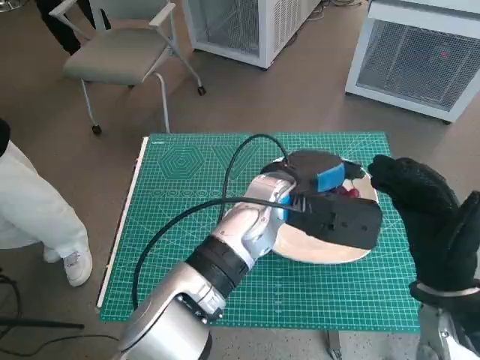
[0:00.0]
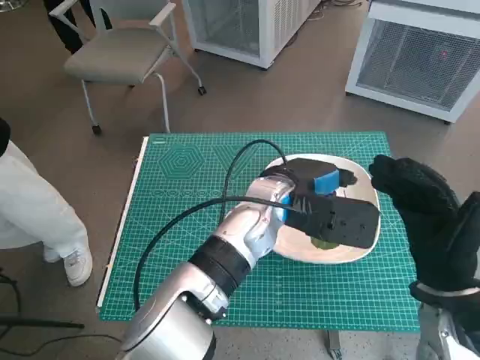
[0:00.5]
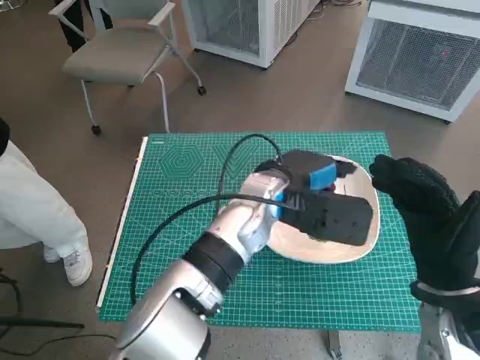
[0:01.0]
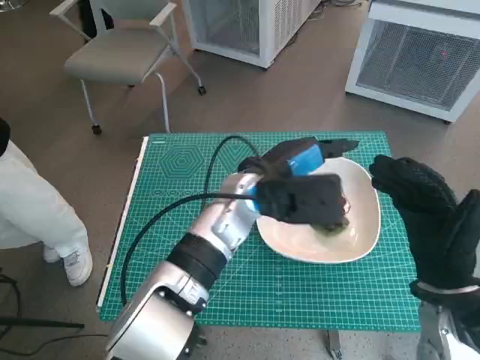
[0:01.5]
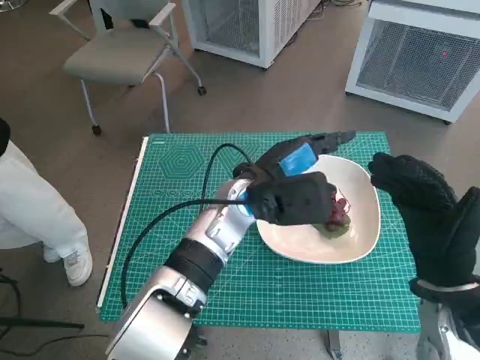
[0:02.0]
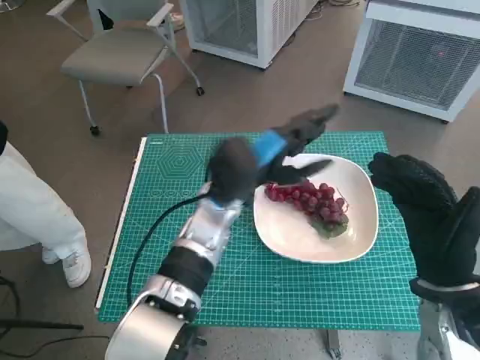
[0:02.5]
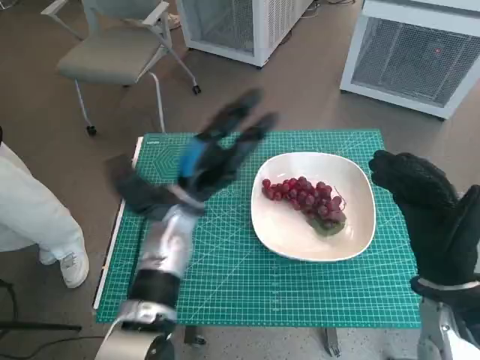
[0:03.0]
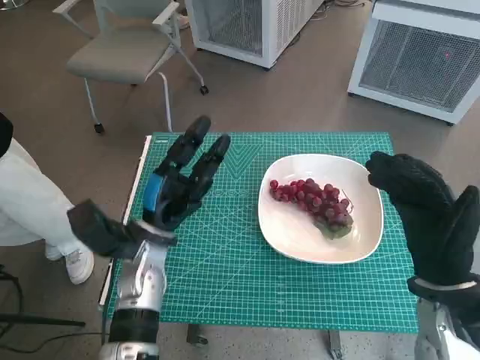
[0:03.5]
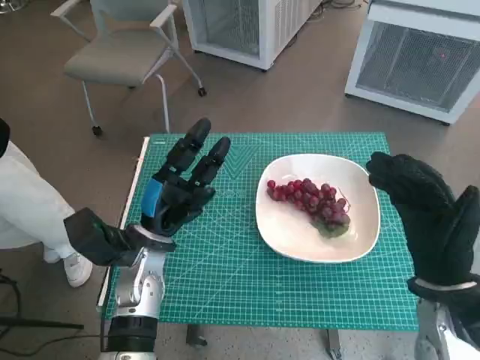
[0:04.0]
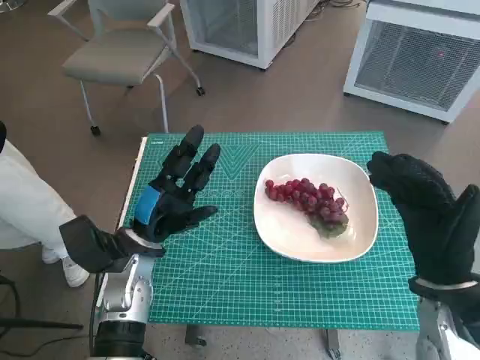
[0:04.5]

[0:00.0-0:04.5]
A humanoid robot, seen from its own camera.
Task of the whole recording: Pick up the grapes and put them on the plate.
0:02.0 to 0:04.5: The left hand moves to the left and downward, roughly 20 cm.

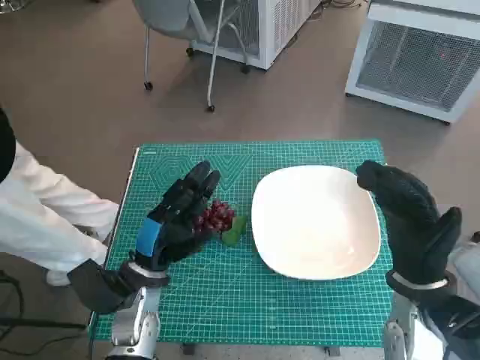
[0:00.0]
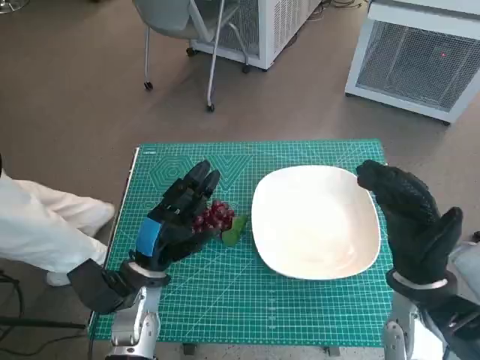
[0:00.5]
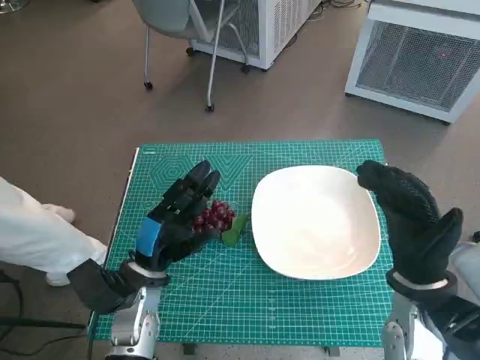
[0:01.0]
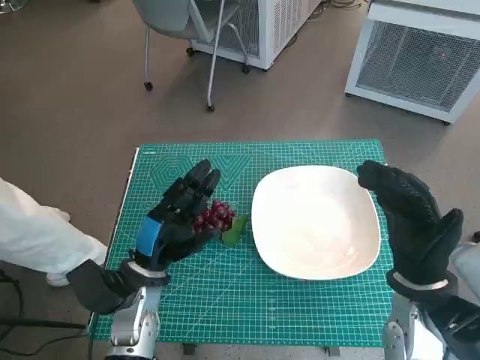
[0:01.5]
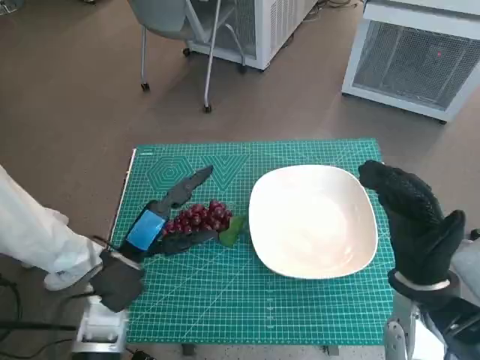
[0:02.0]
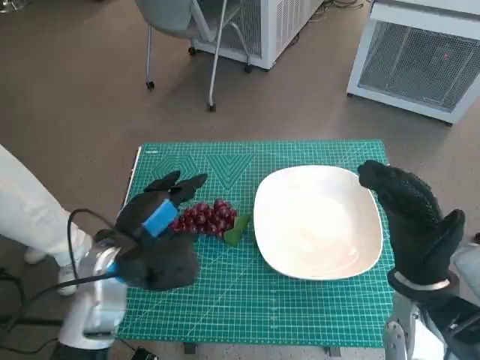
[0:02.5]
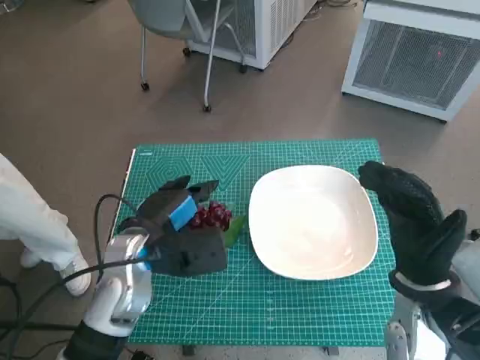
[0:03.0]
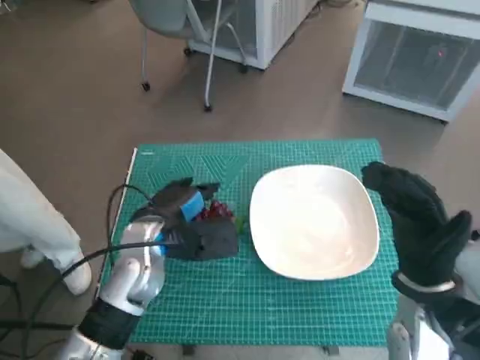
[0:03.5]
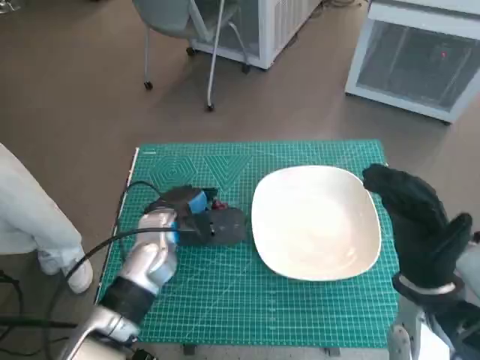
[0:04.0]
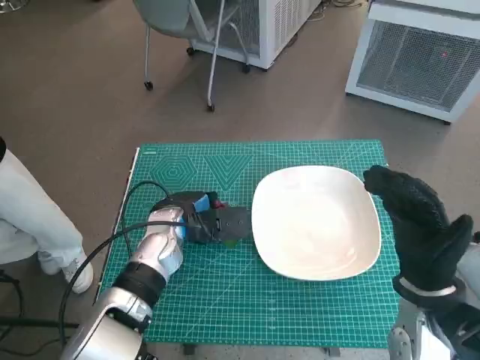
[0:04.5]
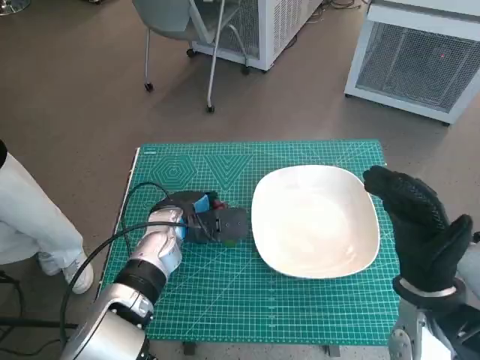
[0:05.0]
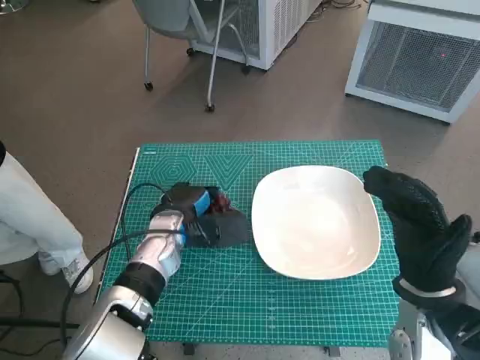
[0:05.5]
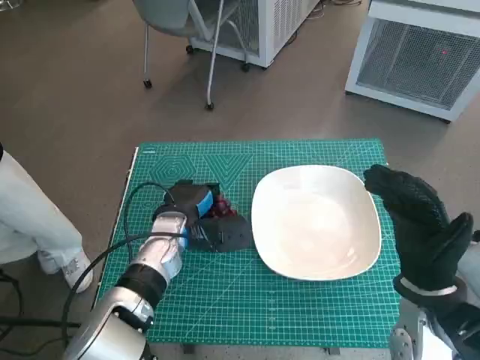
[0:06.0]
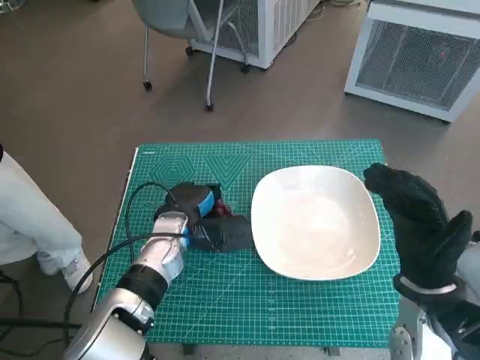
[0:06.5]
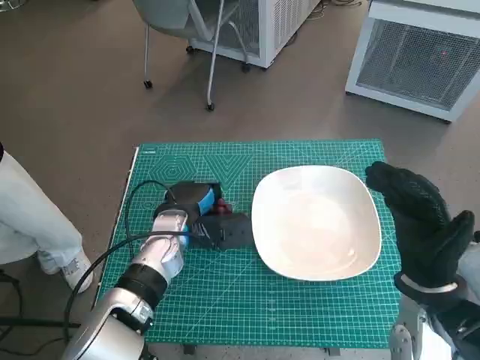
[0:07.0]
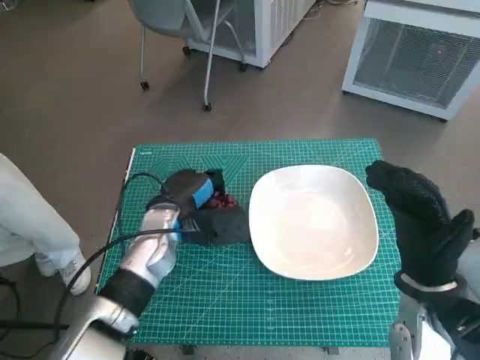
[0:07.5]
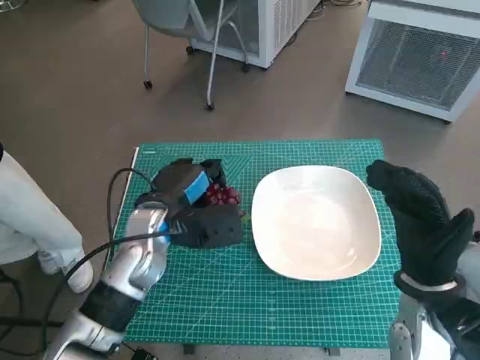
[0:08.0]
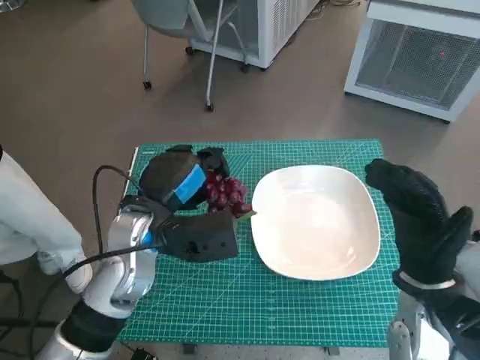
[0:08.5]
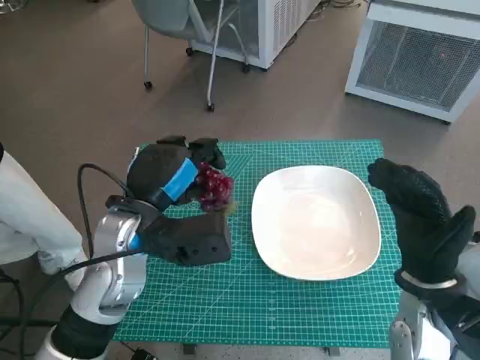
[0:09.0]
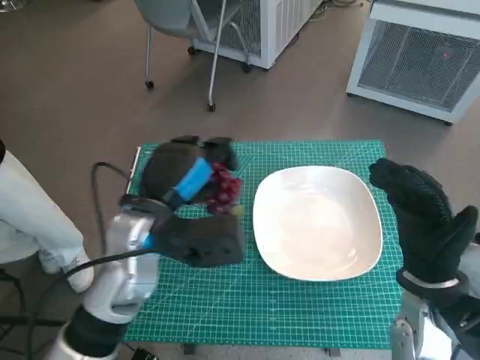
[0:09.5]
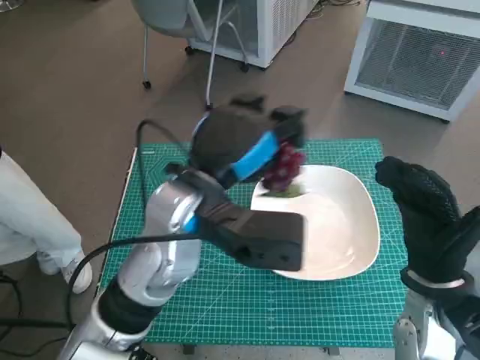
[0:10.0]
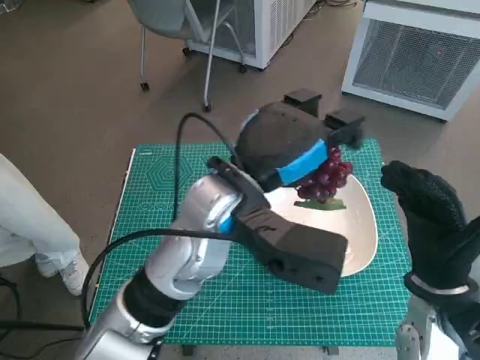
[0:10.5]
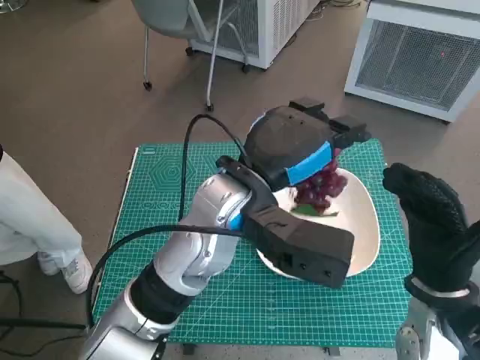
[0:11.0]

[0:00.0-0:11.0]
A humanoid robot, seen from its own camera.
Task of the whole recording: Pick up the grapes and put them on the plate.
Step, 0:00.0 to 0:05.0: Grasp the grapes with left hand.
0:02.0 to 0:03.5: The left hand moves some 10 cm.
0:03.5 to 0:05.5: The left hand changes place by about 5 cm.
0:05.5 to 0:07.5: The hands make only small movements.
0:07.5 to 0:09.0: The left hand travels upward and backward by some 10 cm.
0:09.0 to 0:11.0: The left hand travels to the right and upward by roughly 15 cm.

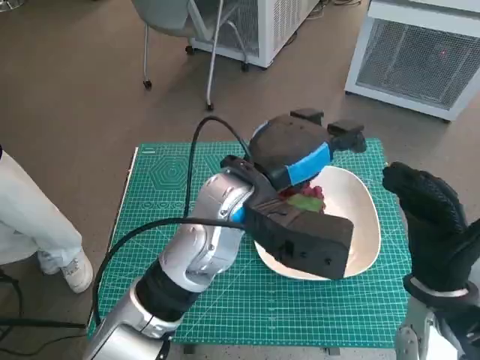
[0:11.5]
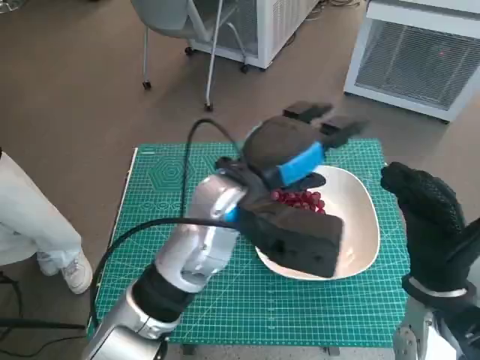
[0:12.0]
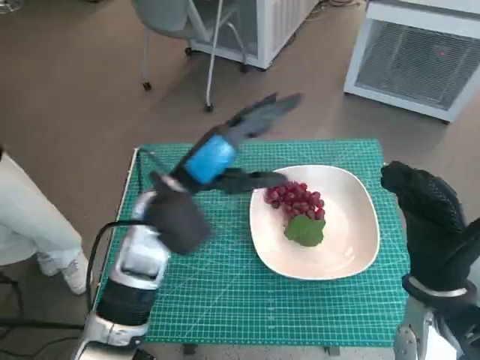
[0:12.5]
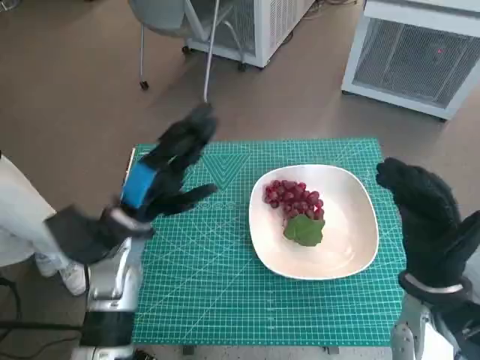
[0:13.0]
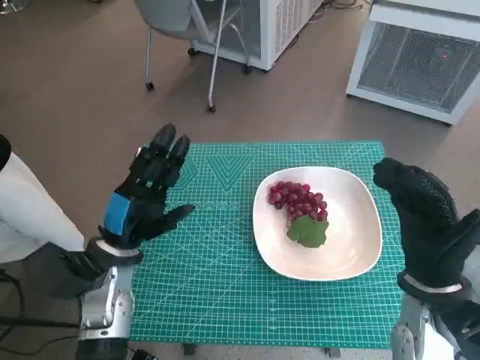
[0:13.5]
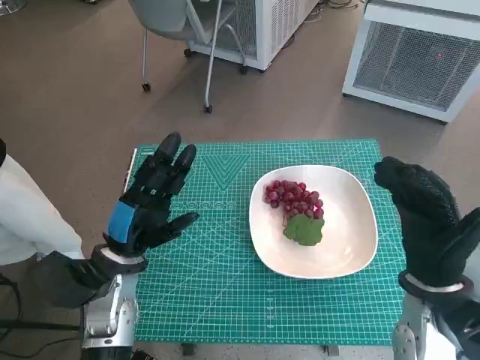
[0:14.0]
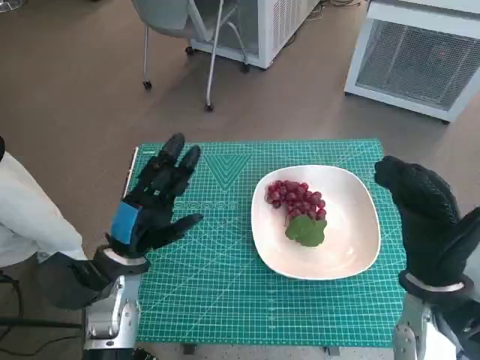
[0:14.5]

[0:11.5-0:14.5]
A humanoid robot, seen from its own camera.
Task of the whole recording: Pick up the grapes and put them on the plate.
0:11.5 to 0:13.0: The left hand shifts about 20 cm to the left and downward.
0:13.0 to 0:14.5: The left hand moves some 5 cm.

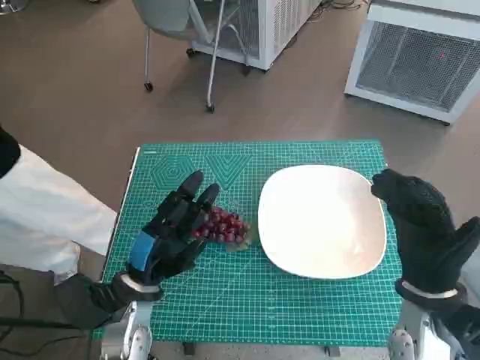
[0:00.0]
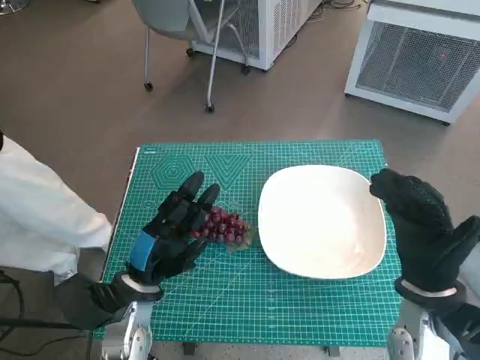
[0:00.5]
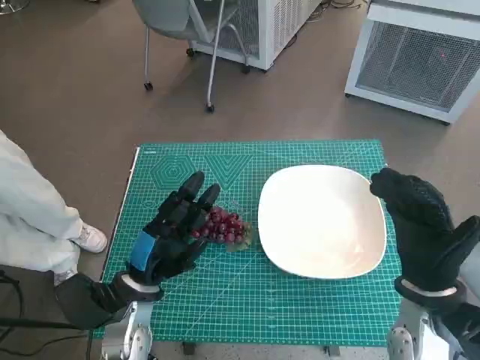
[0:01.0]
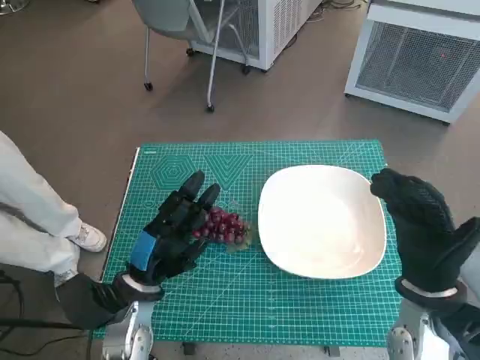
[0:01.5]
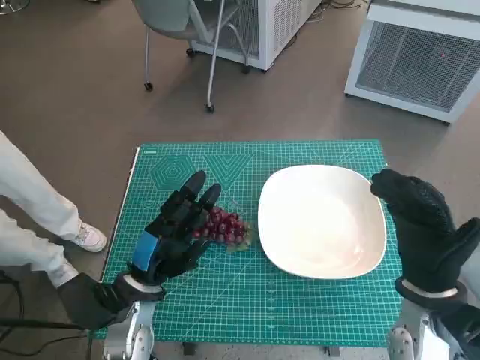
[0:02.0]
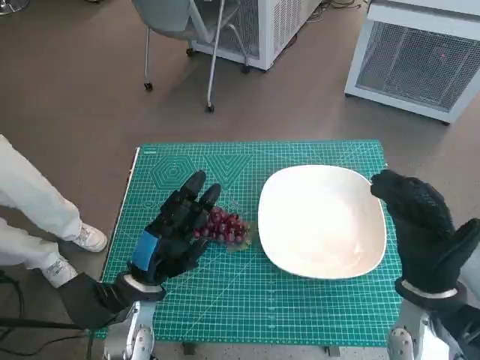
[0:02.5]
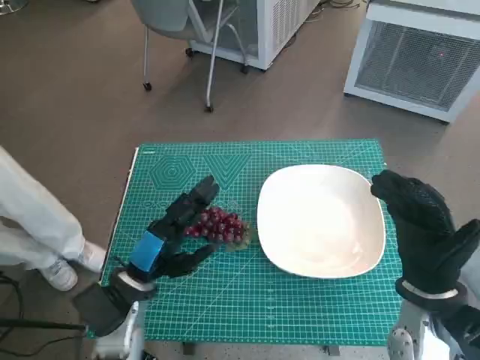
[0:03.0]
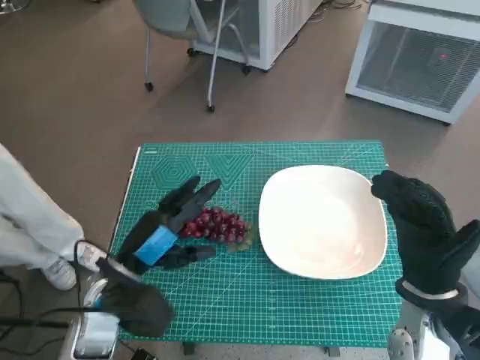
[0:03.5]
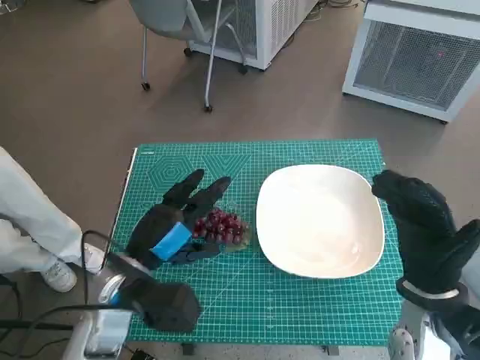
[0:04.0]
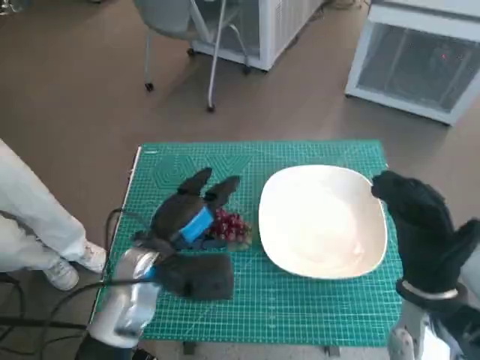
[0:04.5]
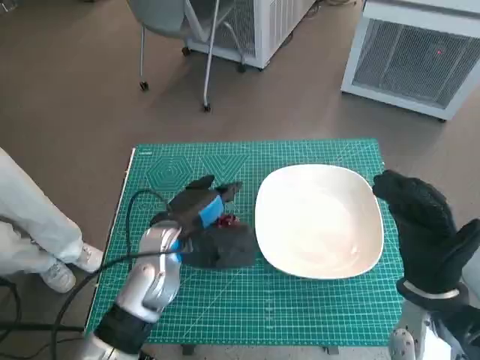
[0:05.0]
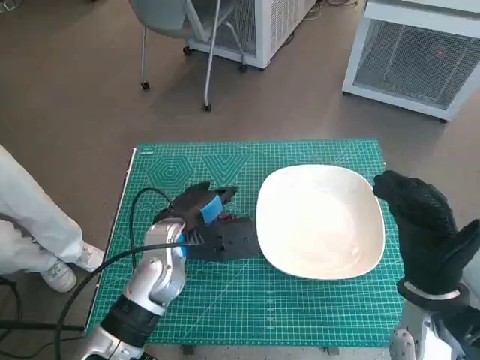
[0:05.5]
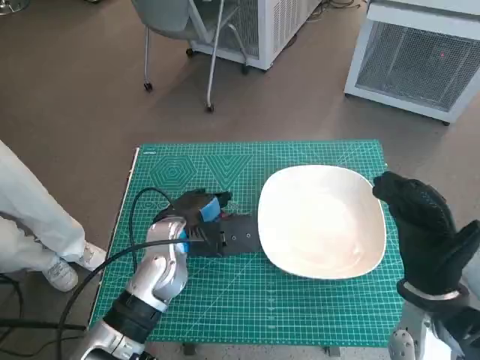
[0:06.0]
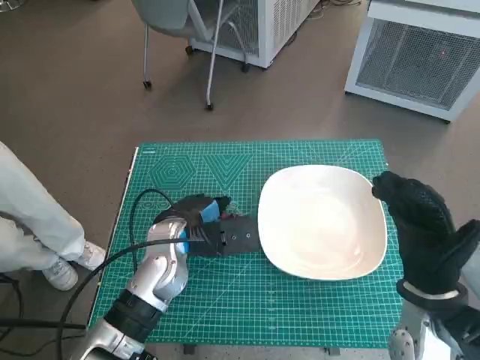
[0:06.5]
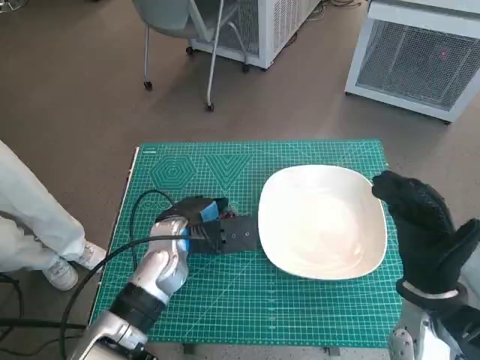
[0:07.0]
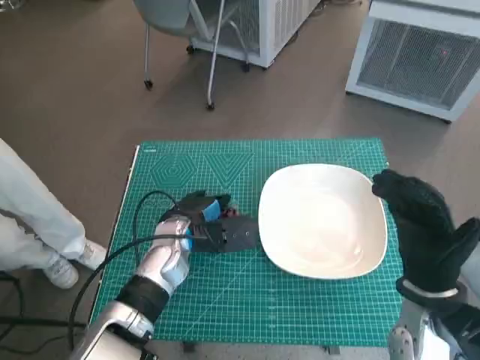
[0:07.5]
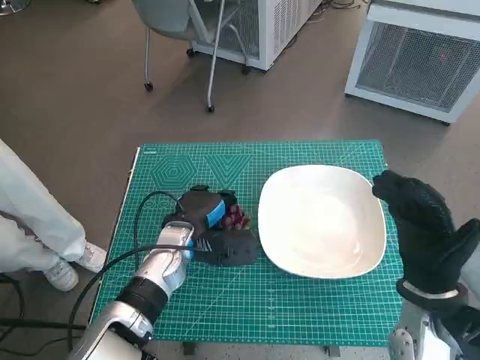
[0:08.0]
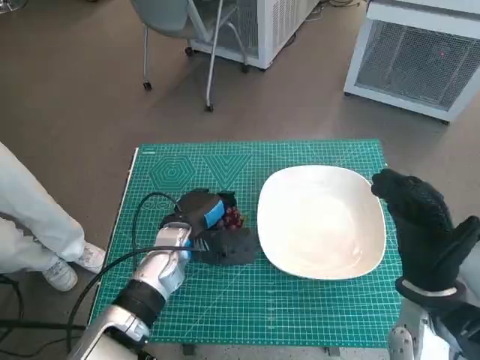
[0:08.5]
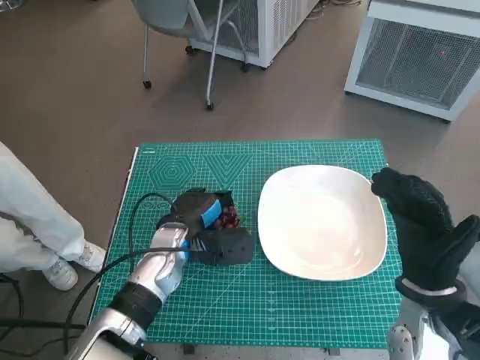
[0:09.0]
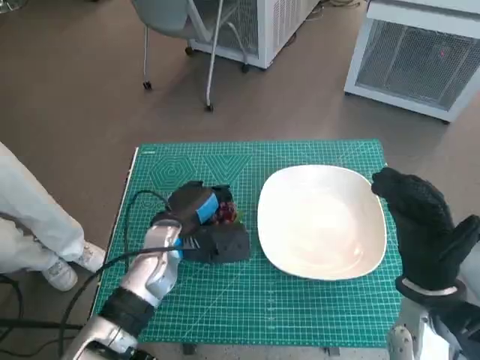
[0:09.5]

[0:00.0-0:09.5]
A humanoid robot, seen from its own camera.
Task of the whole recording: Pick up the grapes and put them on the plate.
Step, 0:00.0 to 0:09.0: Grasp the grapes with left hand.
0:02.0 to 0:04.0: The left hand heads upward, covering roughly 5 cm.
0:04.0 to 0:05.5: The left hand travels forward and to the right by some 10 cm.
0:05.5 to 0:09.5: The hands stay close to where they were, moving slightly.
